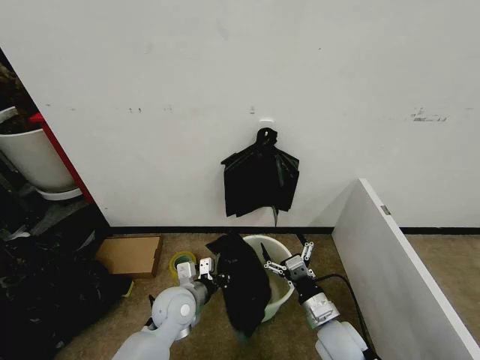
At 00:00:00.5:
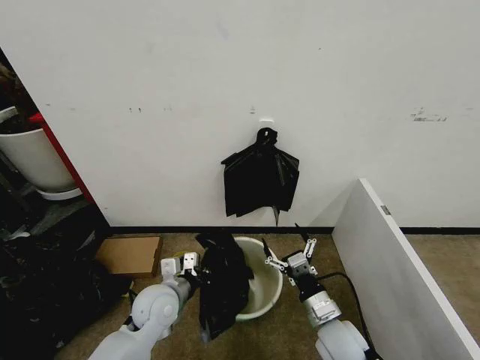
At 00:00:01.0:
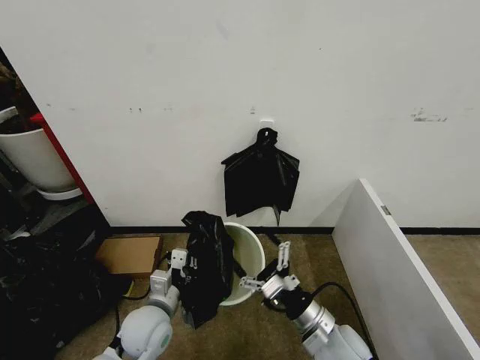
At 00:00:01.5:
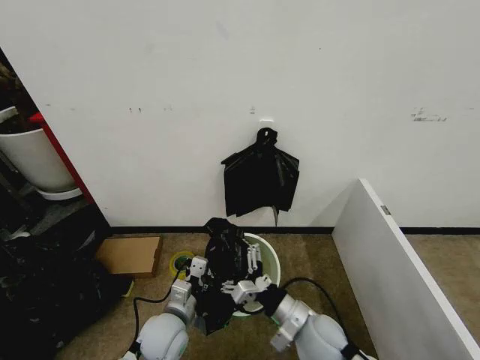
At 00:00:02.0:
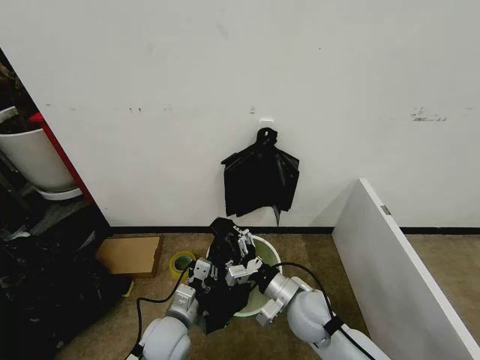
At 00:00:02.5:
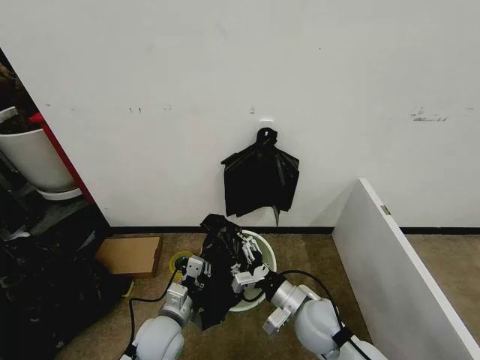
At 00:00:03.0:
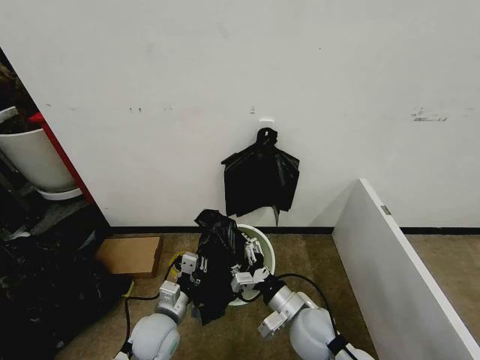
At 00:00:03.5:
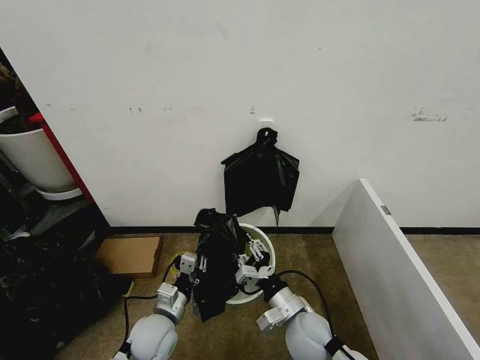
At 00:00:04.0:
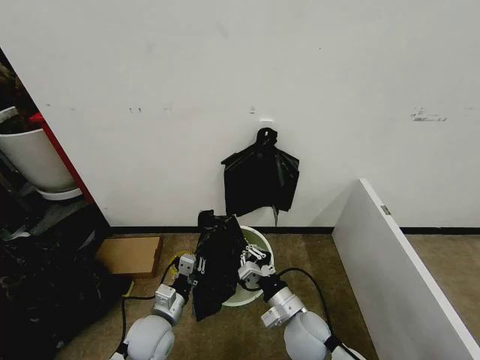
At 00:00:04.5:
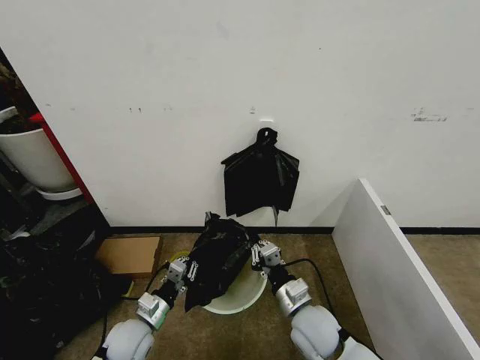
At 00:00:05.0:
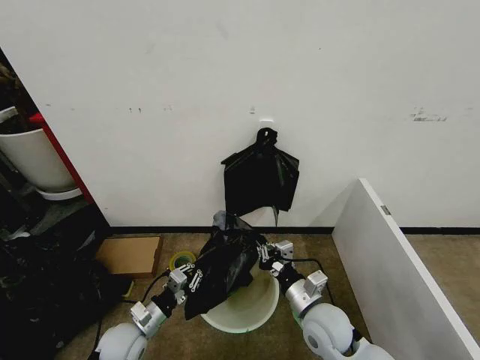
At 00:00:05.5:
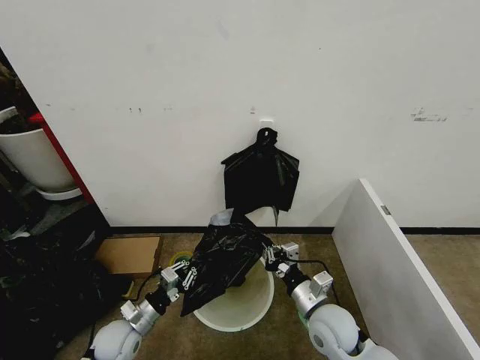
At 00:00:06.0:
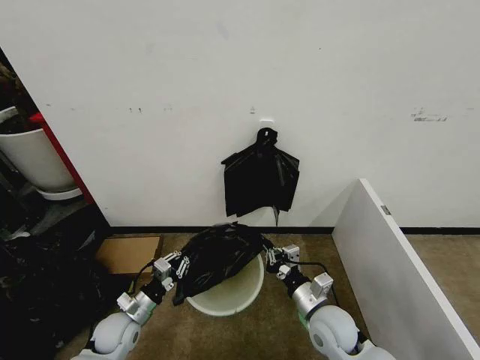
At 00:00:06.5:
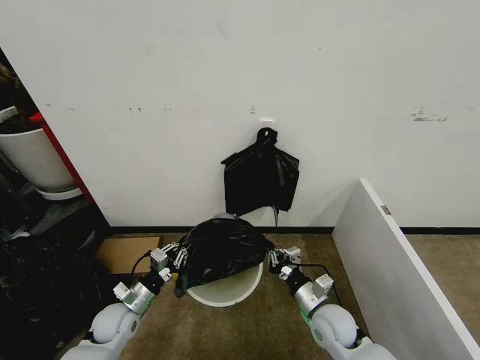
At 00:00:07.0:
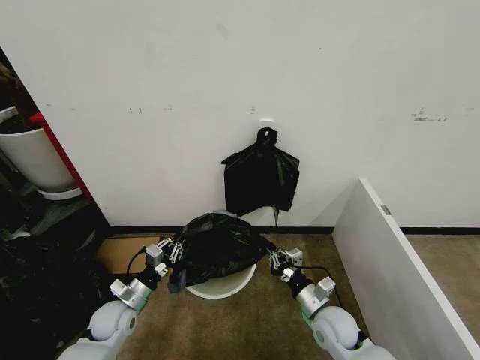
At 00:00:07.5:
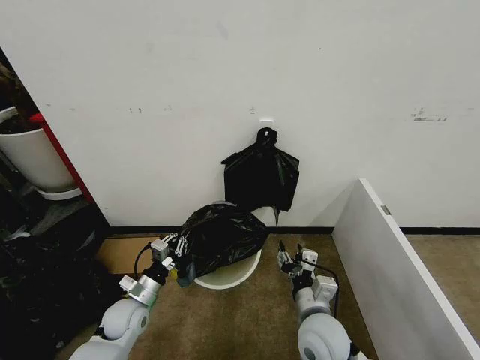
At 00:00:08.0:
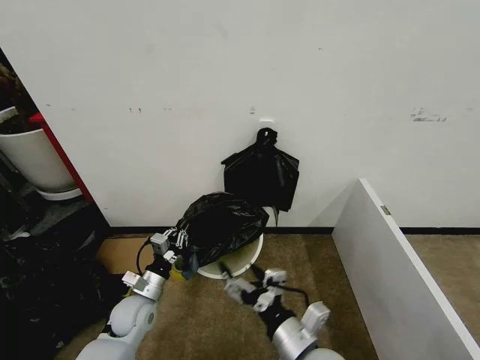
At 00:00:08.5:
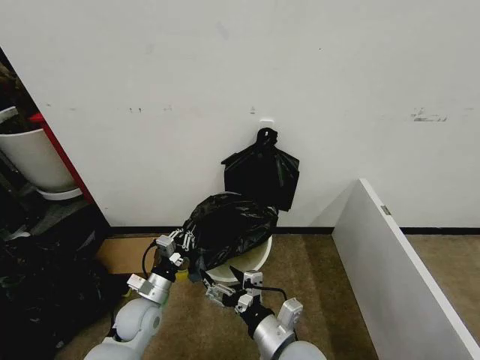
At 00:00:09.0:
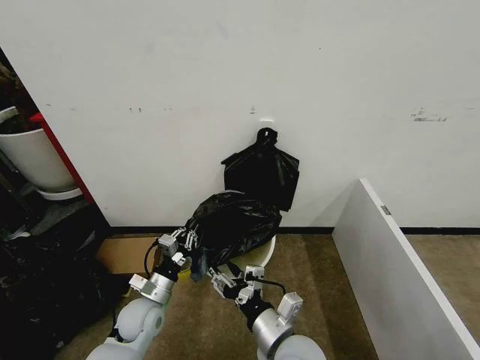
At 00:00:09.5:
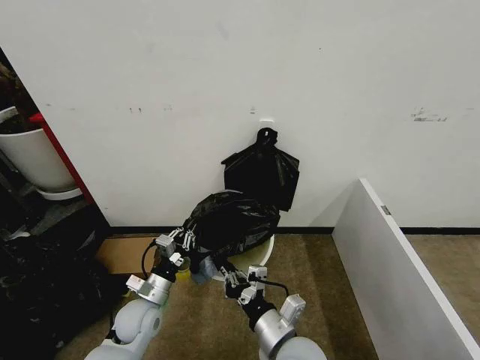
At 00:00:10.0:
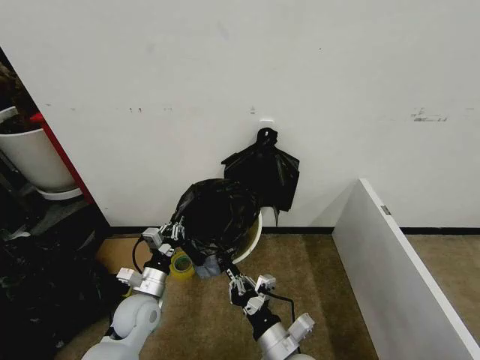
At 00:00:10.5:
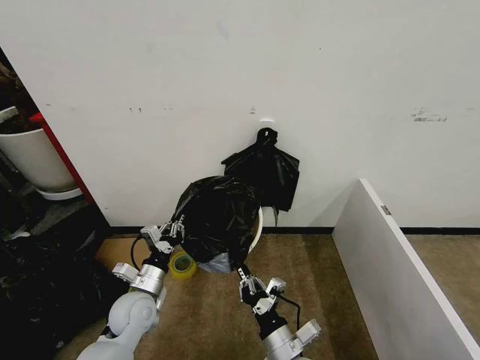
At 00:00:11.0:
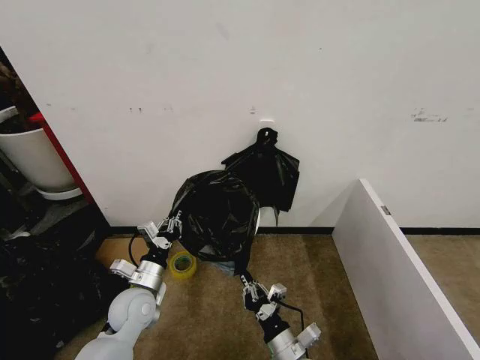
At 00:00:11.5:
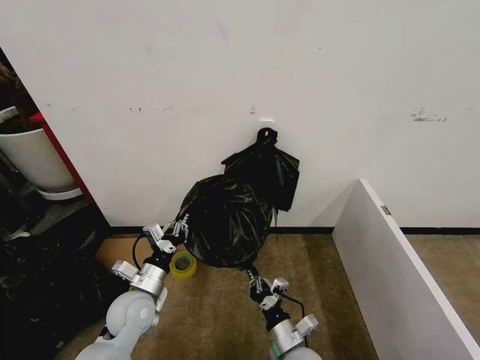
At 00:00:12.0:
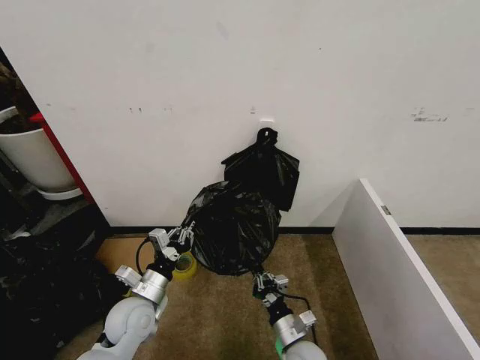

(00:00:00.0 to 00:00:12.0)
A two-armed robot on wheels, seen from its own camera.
Task of the whole recording: Place the garbage bag over the trash bin.
00:00:00.0 - 00:00:02.0: The left gripper goes some 5 cm backward; the right gripper moves to the left, some 5 cm.
00:00:02.0 - 00:00:04.0: The right gripper closes its fingers.
00:00:04.0 - 00:00:06.0: The left gripper is displaced to the left by about 10 cm; the right gripper is displaced to the right by roughly 5 cm.
00:00:06.0 - 00:00:08.0: The right gripper travels backward, upward and to the left by some 15 cm, and opens its fingers, while the left gripper moves about 5 cm.
00:00:08.0 - 00:00:10.0: The right gripper moves downward, some 5 cm, and closes.
00:00:10.0 - 00:00:12.0: The right gripper goes some 10 cm downward.

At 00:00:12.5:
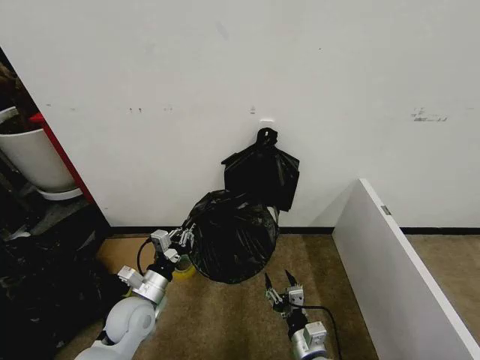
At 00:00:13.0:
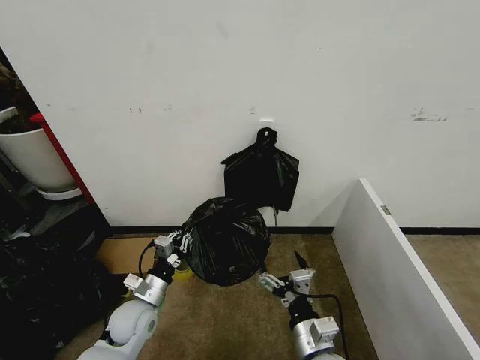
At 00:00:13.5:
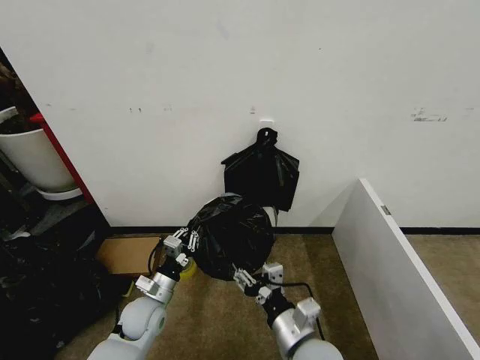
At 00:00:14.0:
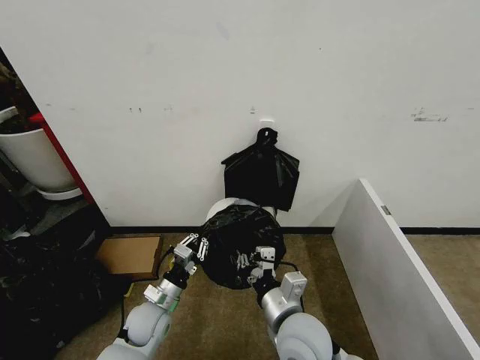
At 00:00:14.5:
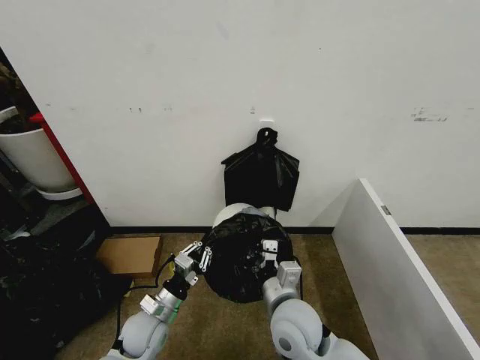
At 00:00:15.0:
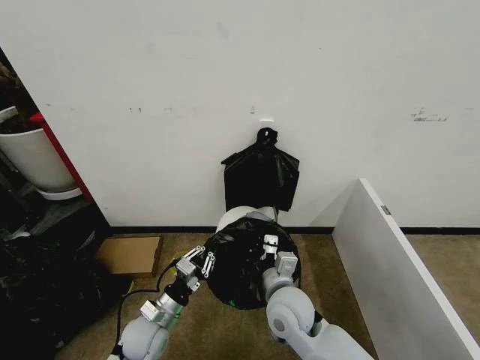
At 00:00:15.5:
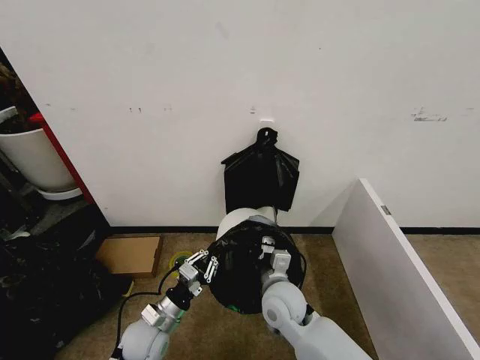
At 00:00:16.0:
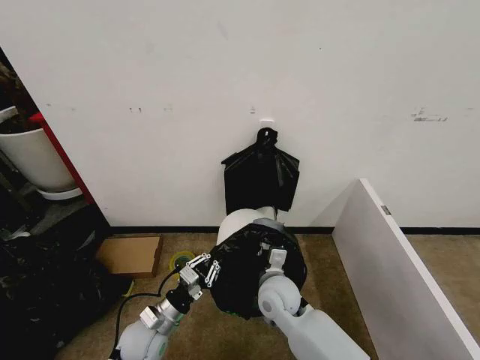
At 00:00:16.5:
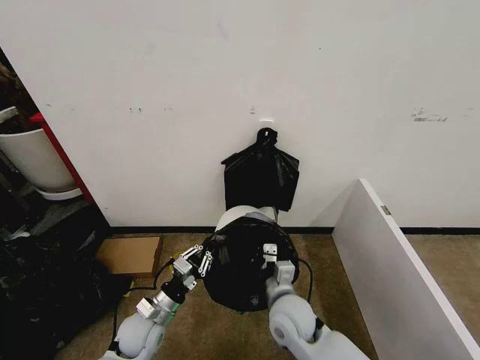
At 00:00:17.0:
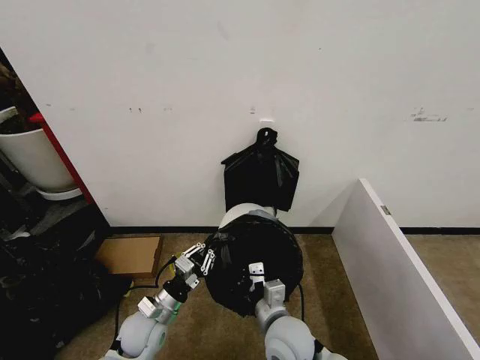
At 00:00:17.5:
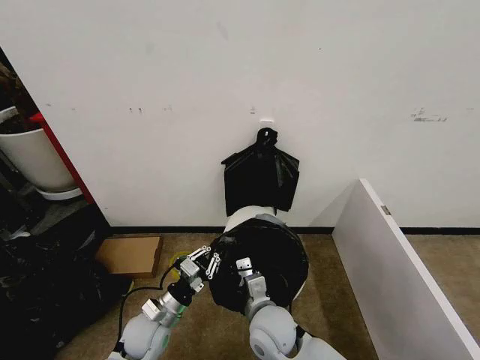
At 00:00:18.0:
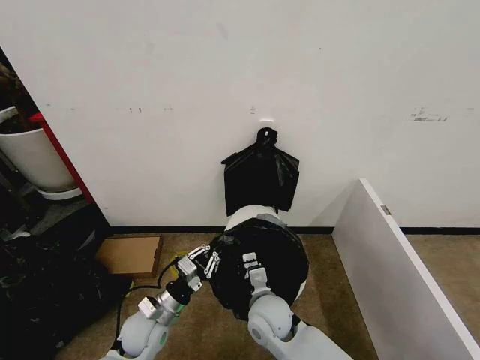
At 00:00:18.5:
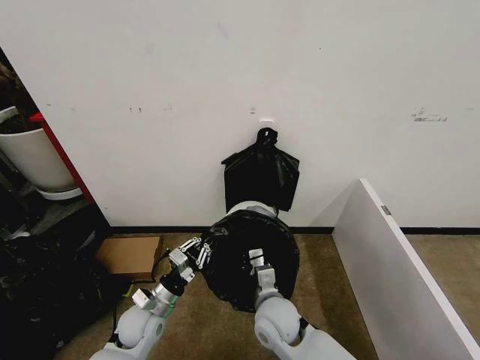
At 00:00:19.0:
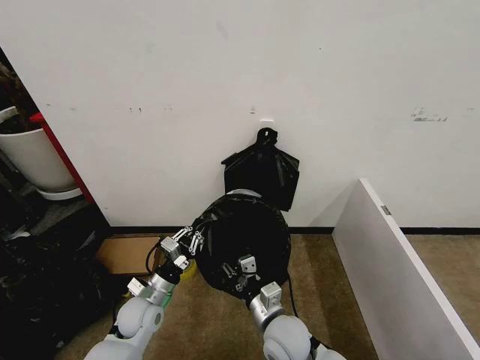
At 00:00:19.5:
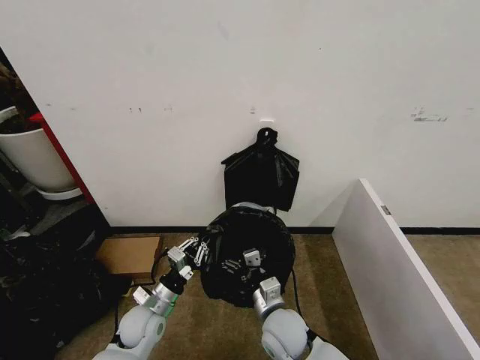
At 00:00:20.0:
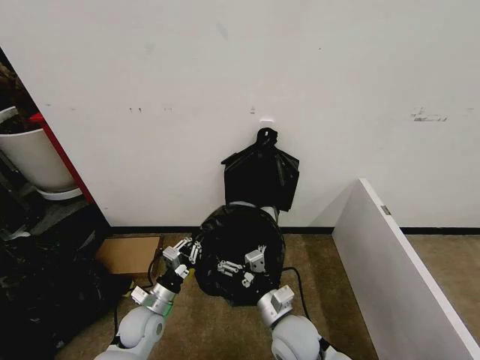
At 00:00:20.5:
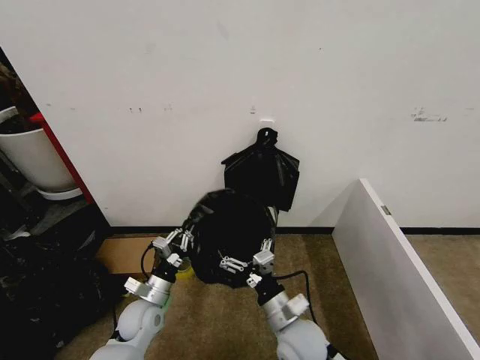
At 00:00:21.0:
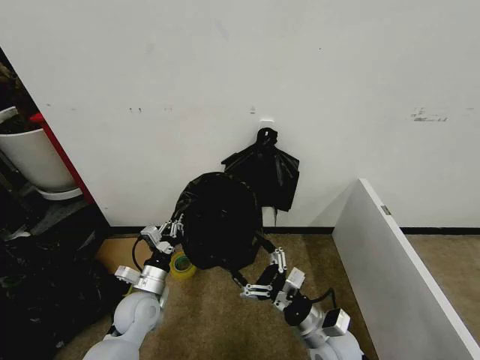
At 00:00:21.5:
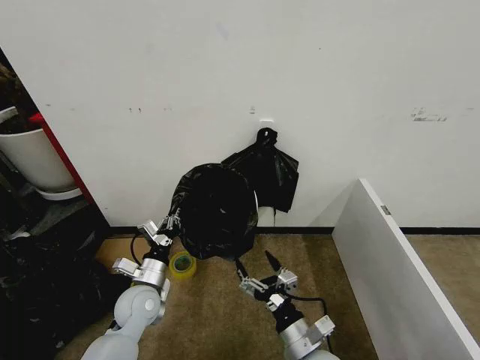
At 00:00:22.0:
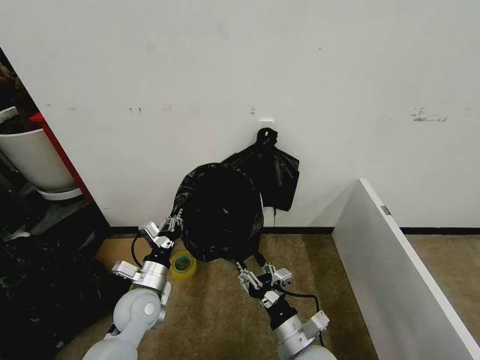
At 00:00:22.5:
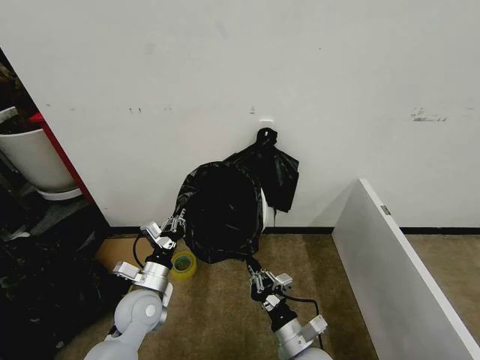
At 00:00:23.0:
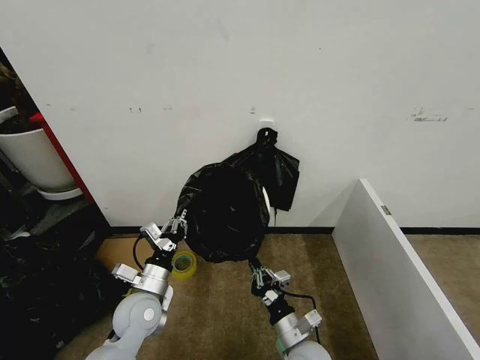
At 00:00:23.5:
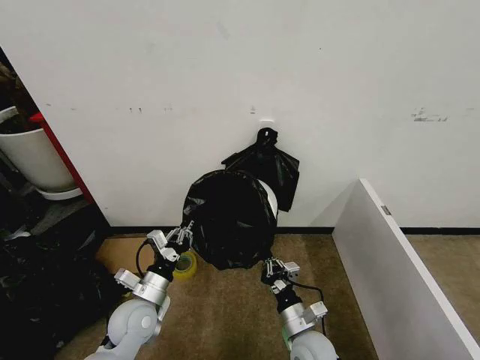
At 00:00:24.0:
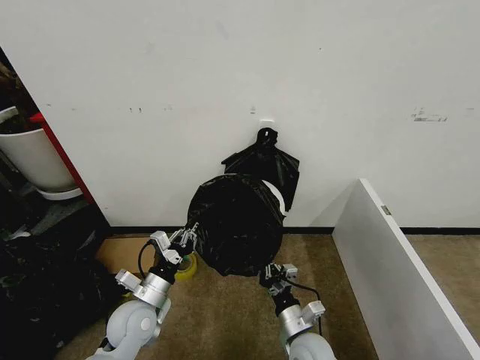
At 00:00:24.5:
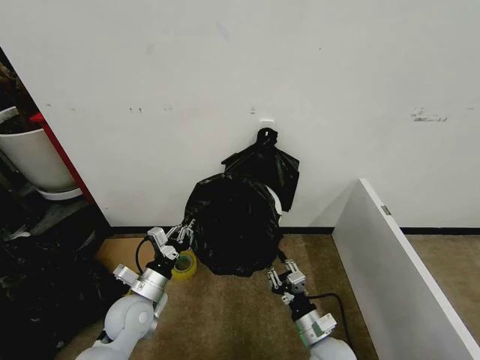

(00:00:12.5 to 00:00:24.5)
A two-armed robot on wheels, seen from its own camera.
Task of the whole recording: Place the garbage bag over the trash bin.
00:00:12.5 - 00:00:14.5: The right gripper goes roughly 15 cm upward, forward and to the left, and closes; the left gripper heads downward, covering some 5 cm.
00:00:14.5 - 00:00:16.5: The right gripper goes some 5 cm downward.
00:00:16.5 - 00:00:18.5: The grippers make only small movements.
00:00:18.5 - 00:00:20.5: The right gripper changes place by approximately 5 cm, and opens.
00:00:20.5 - 00:00:22.5: The left gripper goes approximately 5 cm upward; the right gripper travels downward by approximately 5 cm, and closes up.
00:00:22.5 - 00:00:24.5: The right gripper changes place by approximately 5 cm.

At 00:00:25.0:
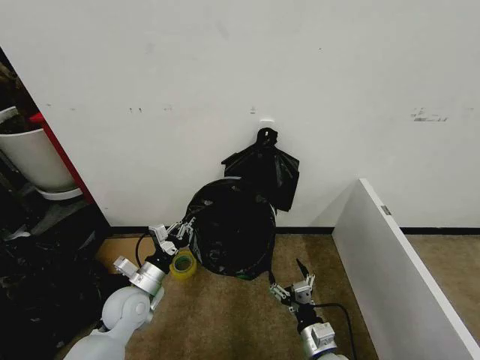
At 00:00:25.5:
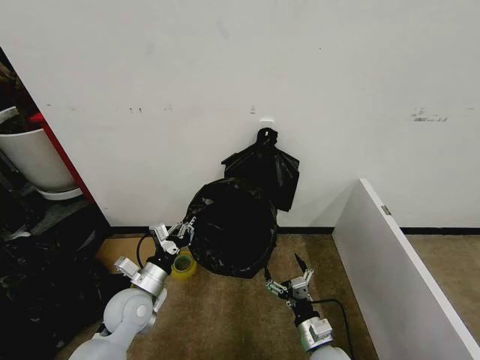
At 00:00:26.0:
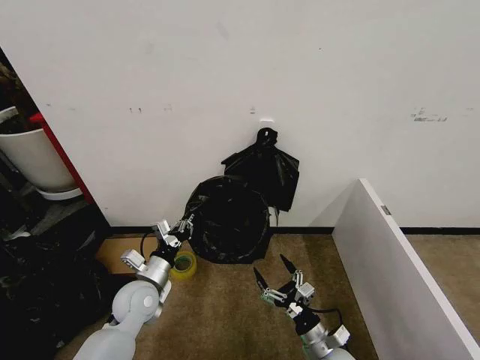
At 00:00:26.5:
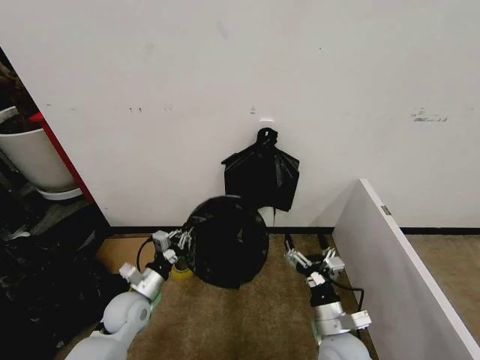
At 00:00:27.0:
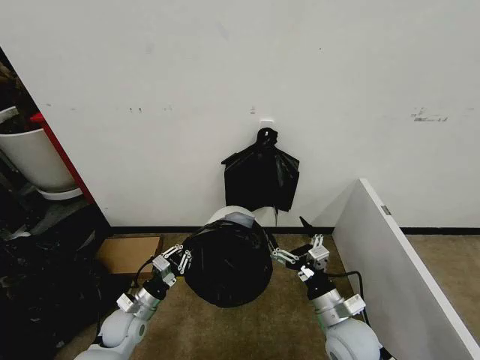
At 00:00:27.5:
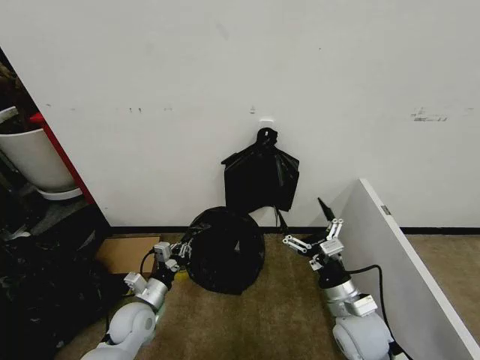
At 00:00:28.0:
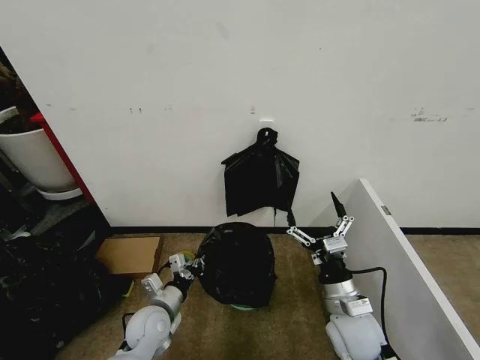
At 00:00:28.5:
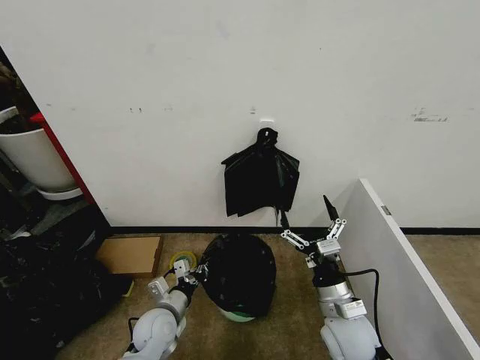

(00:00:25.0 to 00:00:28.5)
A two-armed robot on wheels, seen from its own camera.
Task of the whole recording: Place the garbage bag over the trash bin.
00:00:25.0 - 00:00:27.0: The right gripper is displaced upward by some 10 cm, while the left gripper travels downward by roughly 10 cm.
00:00:27.0 - 00:00:28.5: The left gripper moves to the right, roughly 10 cm.
